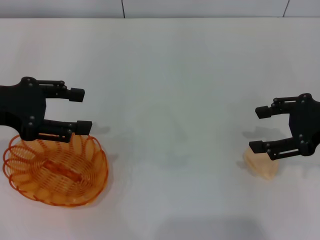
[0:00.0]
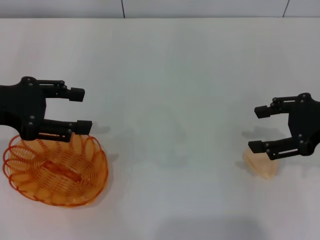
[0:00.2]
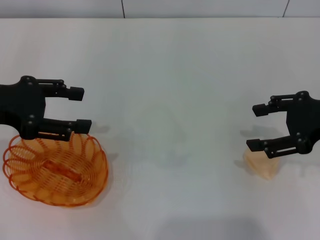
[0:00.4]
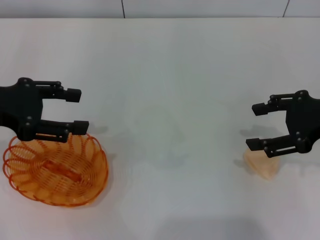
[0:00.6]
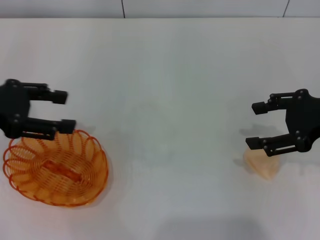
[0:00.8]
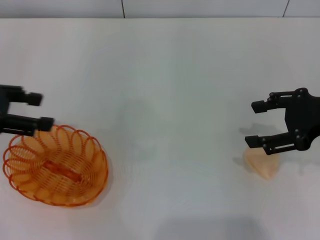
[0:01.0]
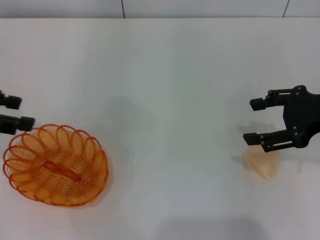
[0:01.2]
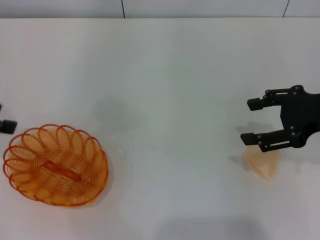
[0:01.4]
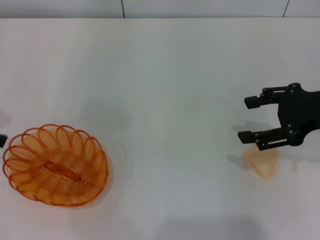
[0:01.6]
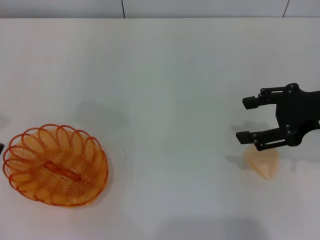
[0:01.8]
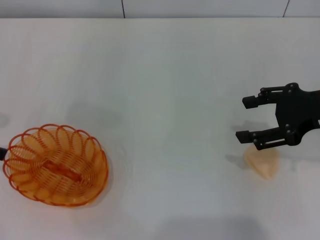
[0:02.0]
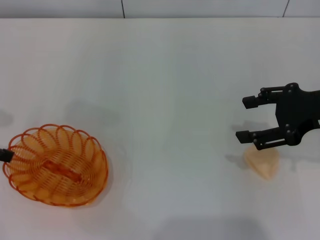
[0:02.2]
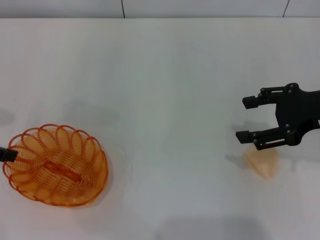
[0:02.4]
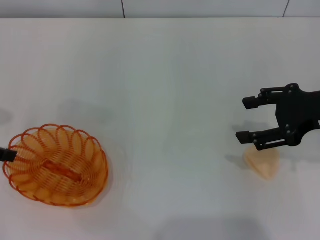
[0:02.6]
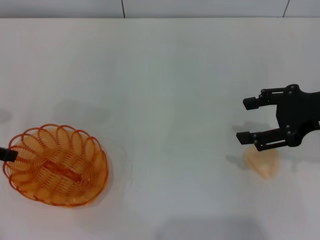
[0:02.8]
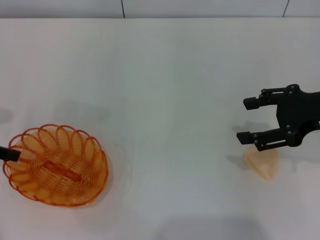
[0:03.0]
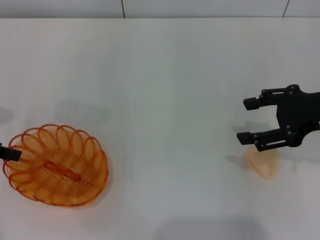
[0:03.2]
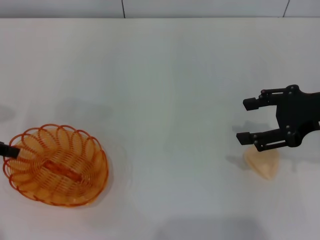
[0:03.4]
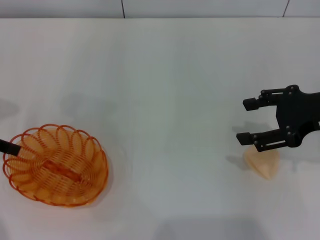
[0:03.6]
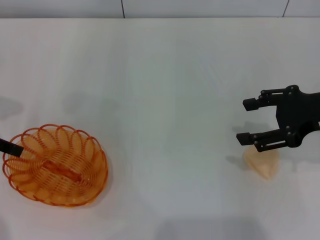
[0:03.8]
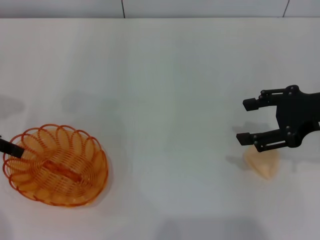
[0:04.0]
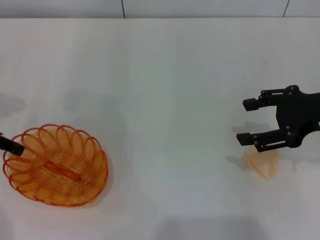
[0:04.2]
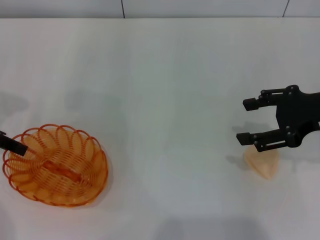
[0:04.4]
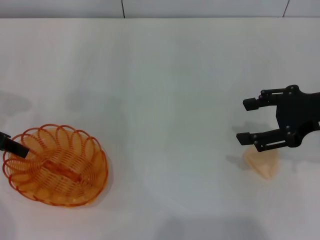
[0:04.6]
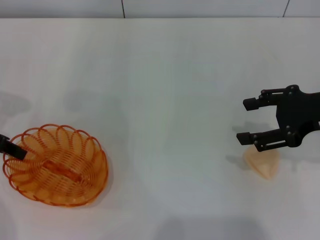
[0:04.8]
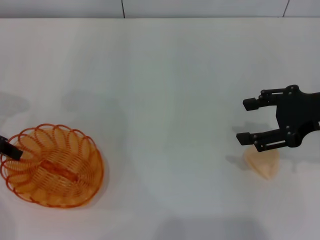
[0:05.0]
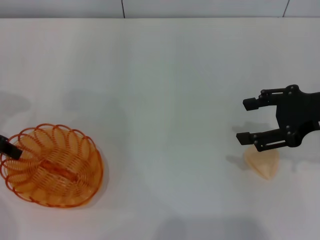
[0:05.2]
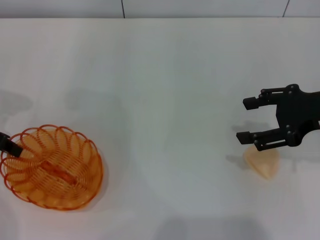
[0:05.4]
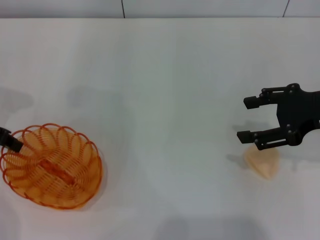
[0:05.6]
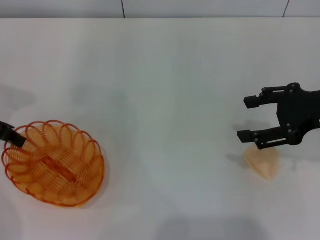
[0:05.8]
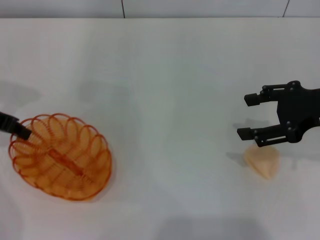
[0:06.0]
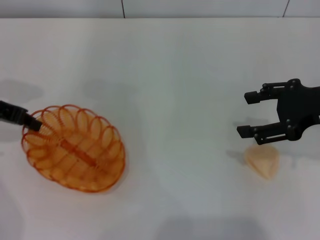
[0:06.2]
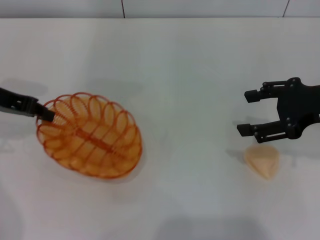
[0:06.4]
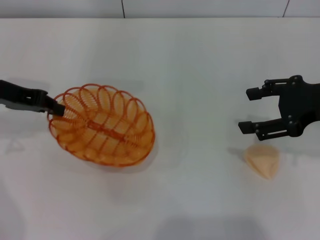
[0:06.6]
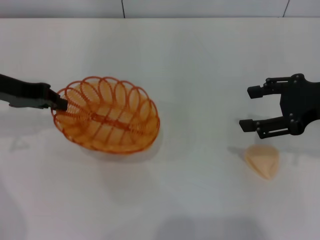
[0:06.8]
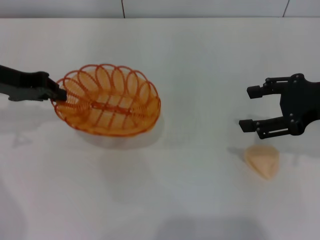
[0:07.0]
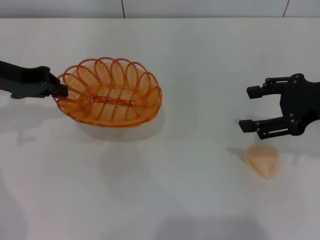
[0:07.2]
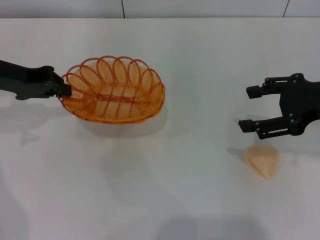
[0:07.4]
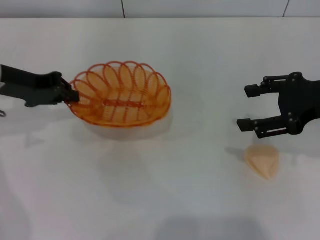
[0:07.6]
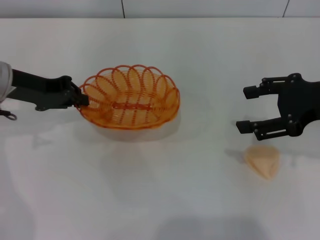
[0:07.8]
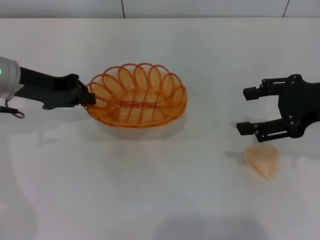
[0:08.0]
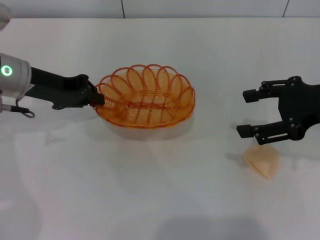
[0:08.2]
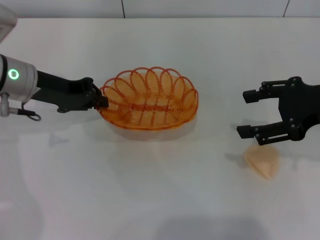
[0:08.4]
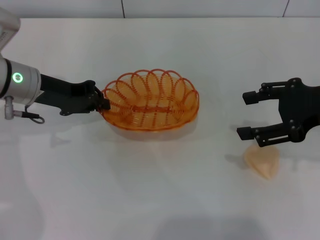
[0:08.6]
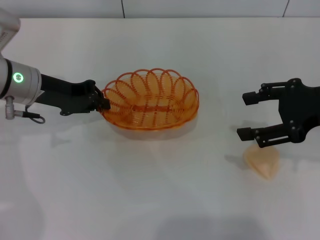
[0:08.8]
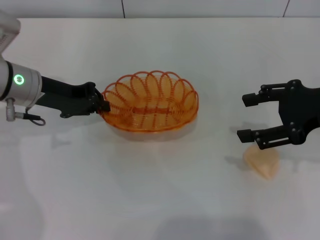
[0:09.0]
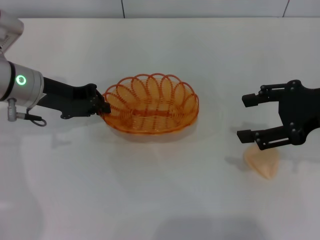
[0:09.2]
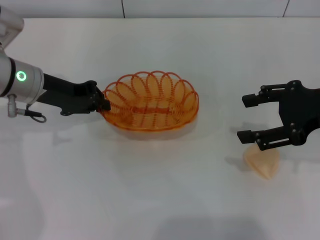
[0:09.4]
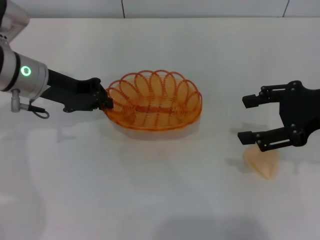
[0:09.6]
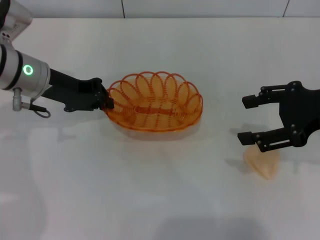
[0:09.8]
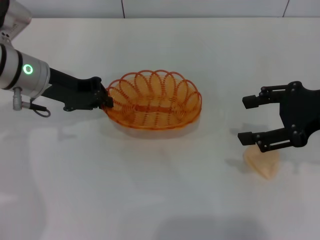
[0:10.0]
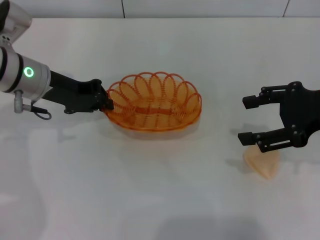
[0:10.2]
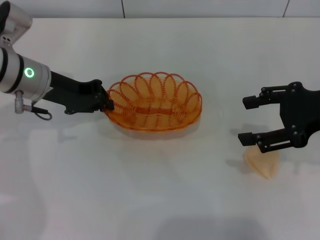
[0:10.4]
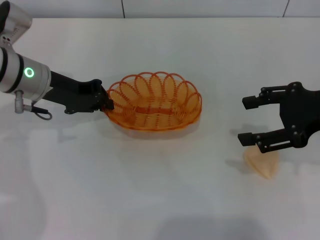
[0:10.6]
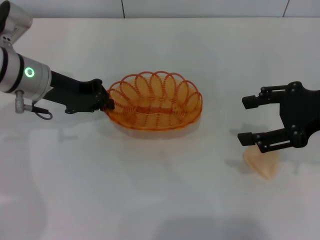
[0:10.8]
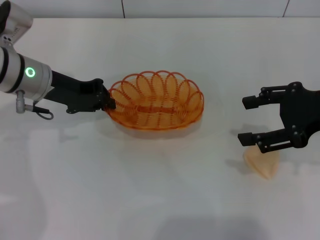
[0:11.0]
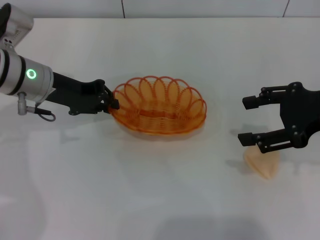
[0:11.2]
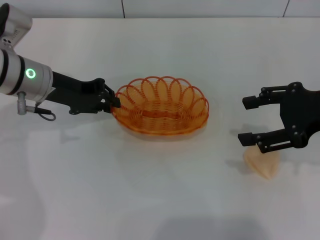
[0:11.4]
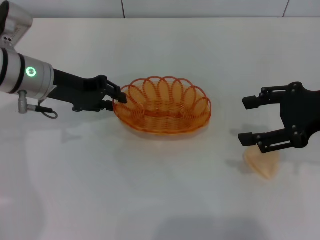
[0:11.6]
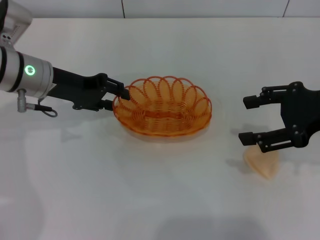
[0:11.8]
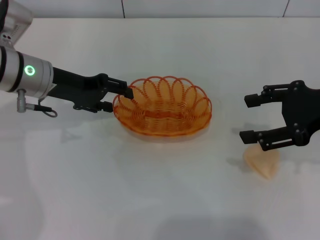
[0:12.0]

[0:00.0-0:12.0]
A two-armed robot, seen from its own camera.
Step, 0:00.0 to 0:06.4: Pick up the basket with the left gripper.
0:00.0 to 0:01.6: The left gripper heads to the left, covering some 10 cm.
0:03.0 to 0:04.4: The grippers make only small movements.
0:04.4 to 0:06.0: The left gripper closes.
0:07.6 to 0:09.0: The left gripper ends up roughly 5 cm from where it was.
0:09.0 to 0:10.4: The grippers move only a little.
0:10.4 to 0:12.0: The left gripper opens up.

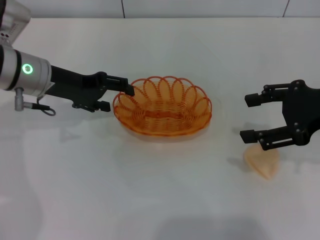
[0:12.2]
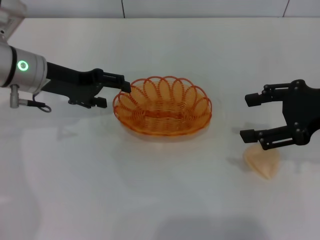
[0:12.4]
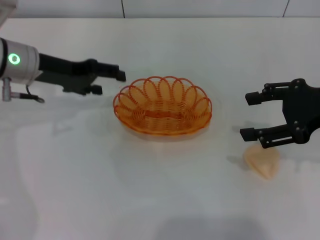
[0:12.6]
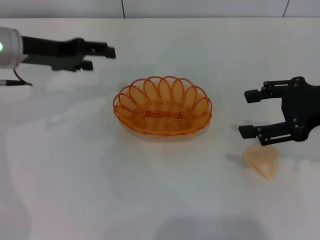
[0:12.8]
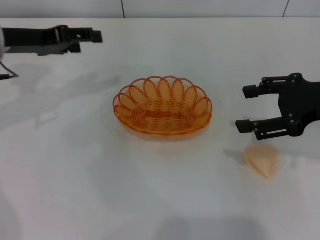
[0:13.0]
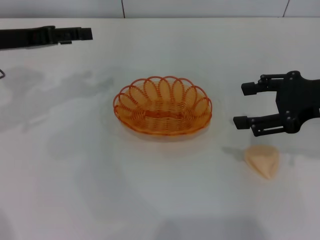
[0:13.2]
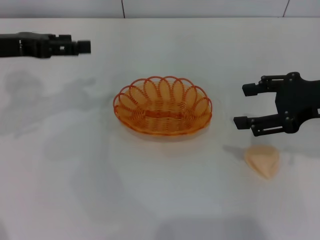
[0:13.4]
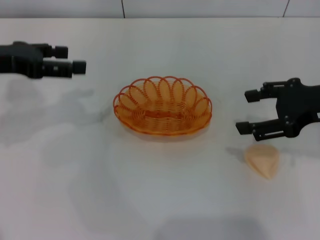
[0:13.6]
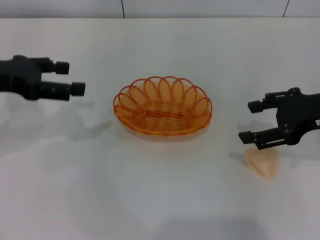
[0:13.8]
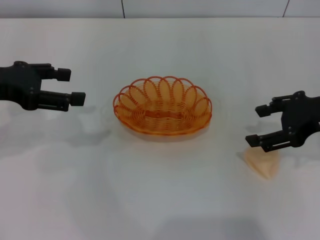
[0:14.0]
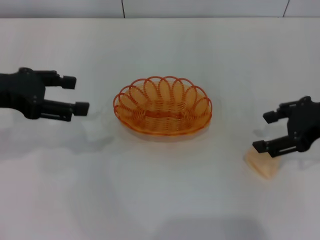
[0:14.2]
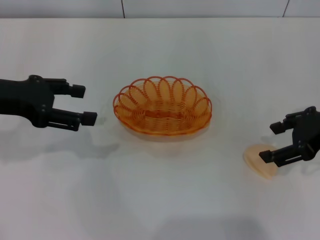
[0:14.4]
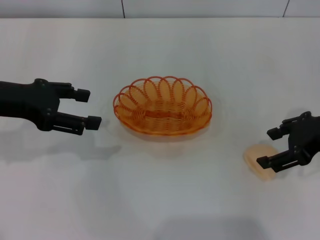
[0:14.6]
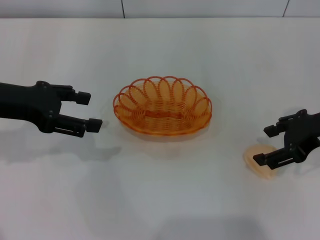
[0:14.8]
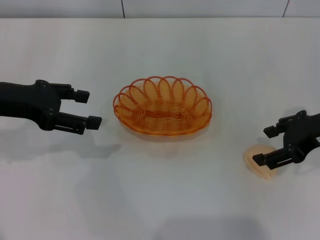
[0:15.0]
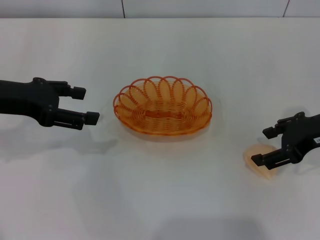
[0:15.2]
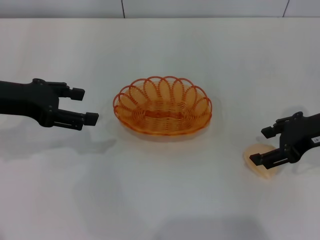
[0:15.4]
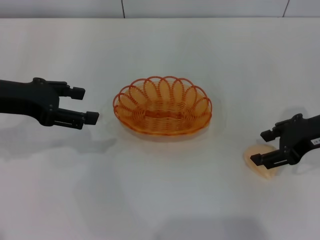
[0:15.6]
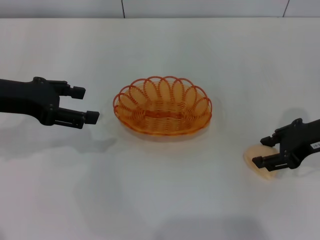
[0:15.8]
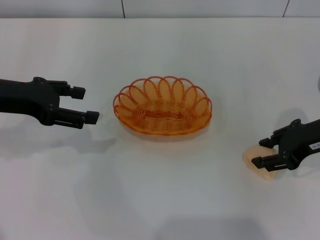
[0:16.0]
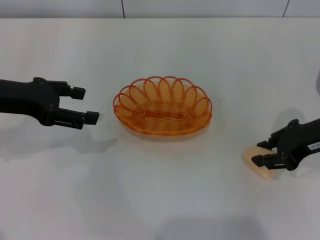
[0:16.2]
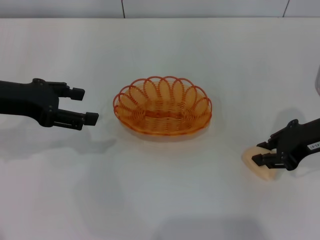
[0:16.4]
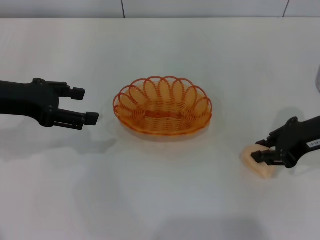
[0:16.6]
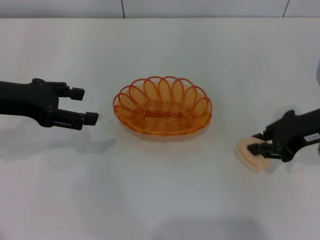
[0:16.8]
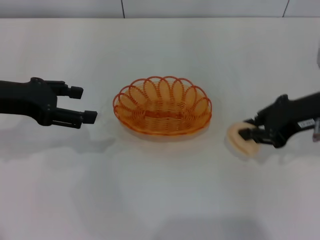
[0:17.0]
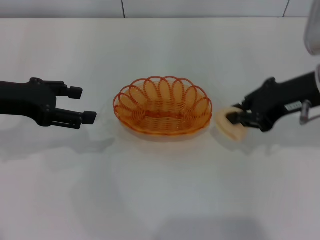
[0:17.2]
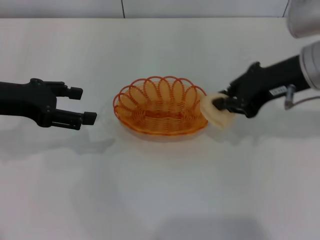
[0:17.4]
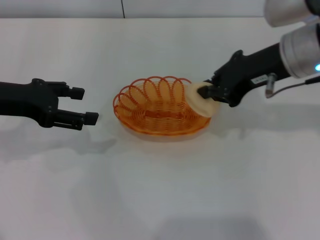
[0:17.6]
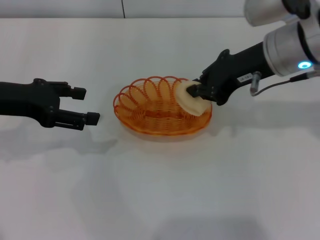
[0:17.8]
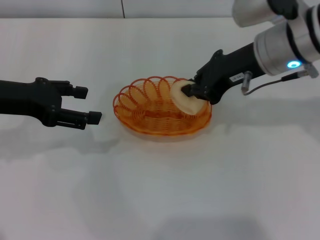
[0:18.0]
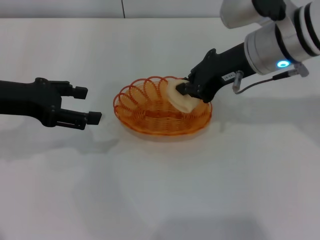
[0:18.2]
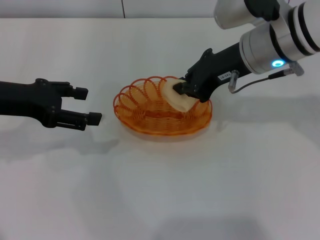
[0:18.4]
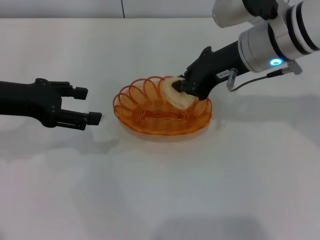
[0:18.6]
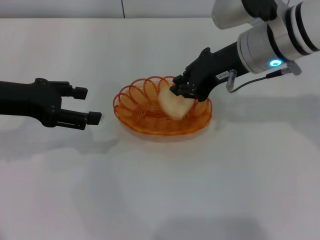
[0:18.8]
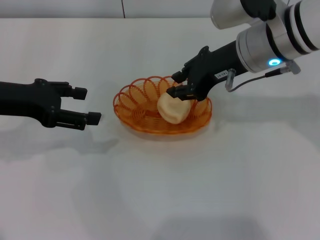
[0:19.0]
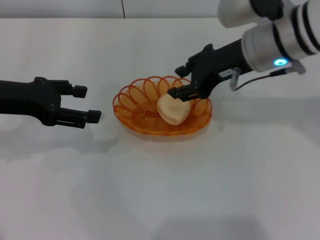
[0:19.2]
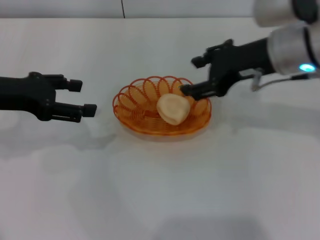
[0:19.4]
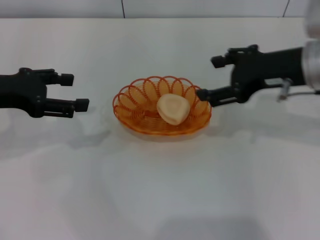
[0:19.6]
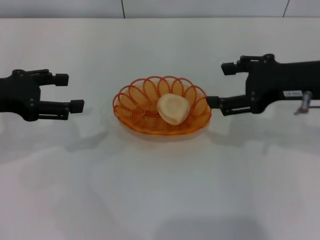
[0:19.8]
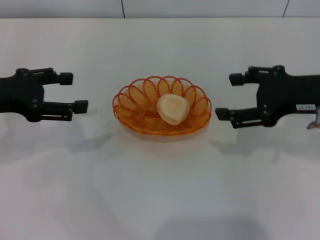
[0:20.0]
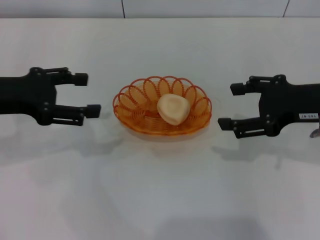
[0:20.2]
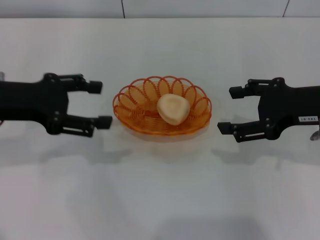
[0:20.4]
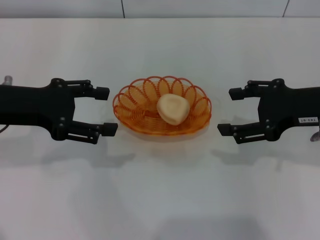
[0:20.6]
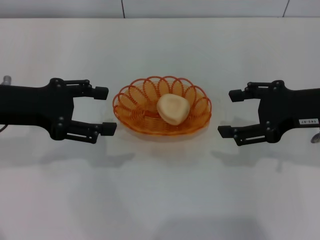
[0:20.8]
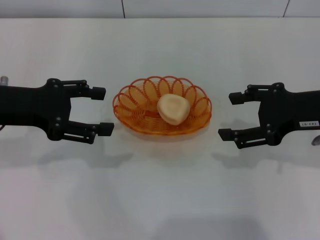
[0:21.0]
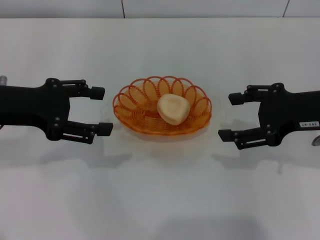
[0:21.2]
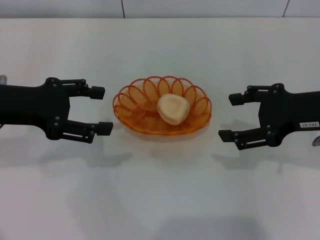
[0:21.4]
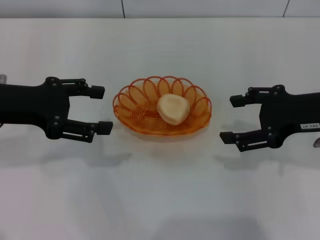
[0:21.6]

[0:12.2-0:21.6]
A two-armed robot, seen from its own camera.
Step, 0:12.6 to 0:16.8: Pick up the egg yolk pastry with the right gripper.
Step, 0:17.0 to 0:19.2: Place the egg yolk pastry into the basket with the right gripper.
0:12.2 to 0:13.8: The left gripper travels to the left, backward and upward by roughly 10 cm.
0:13.8 to 0:15.4: There are only small adjustments of the grippers.
0:15.4 to 0:17.0: The right gripper closes.
0:17.0 to 0:18.4: The right gripper is displaced to the left and forward by approximately 10 cm.
0:18.4 to 0:20.0: The right gripper heads to the right and backward, covering about 15 cm, and opens up.
0:20.0 to 0:21.6: The grippers stay close to where they were, moving slightly.
